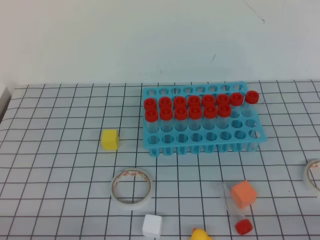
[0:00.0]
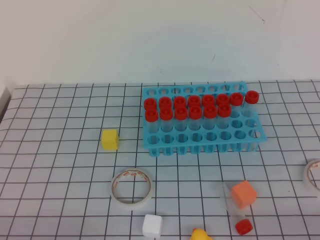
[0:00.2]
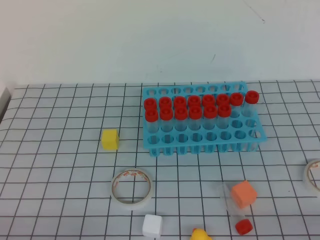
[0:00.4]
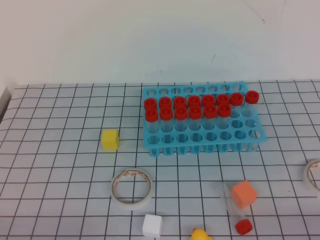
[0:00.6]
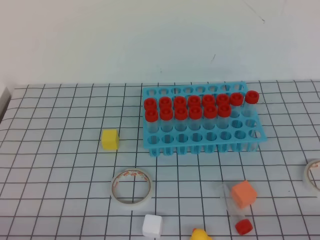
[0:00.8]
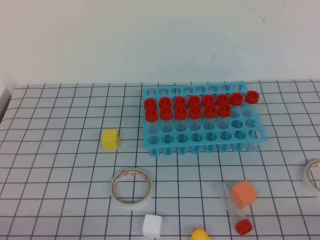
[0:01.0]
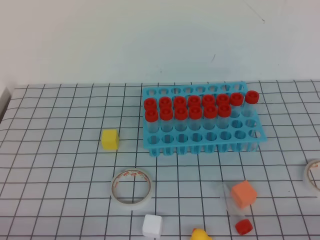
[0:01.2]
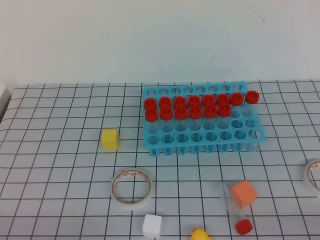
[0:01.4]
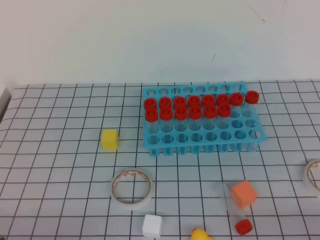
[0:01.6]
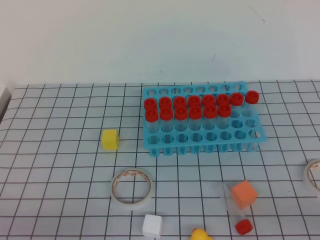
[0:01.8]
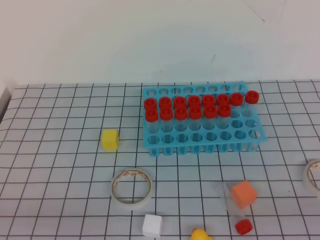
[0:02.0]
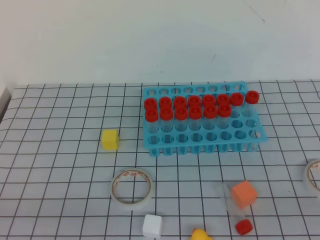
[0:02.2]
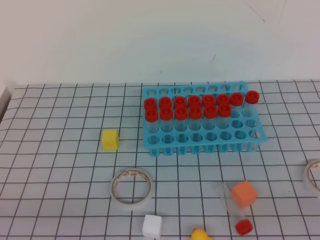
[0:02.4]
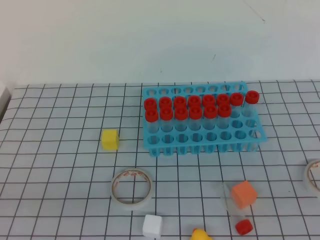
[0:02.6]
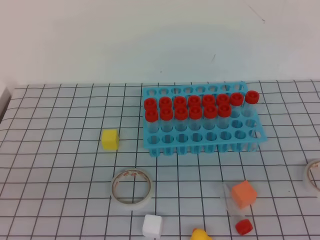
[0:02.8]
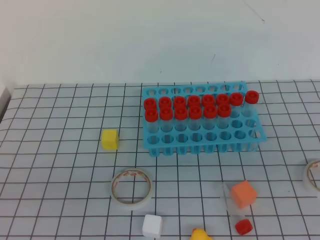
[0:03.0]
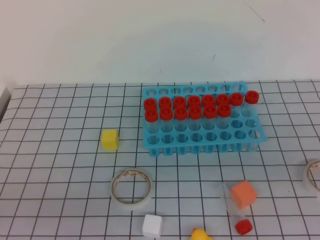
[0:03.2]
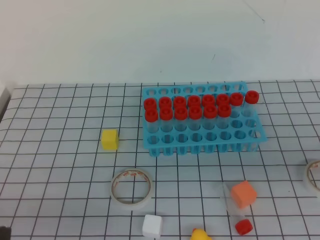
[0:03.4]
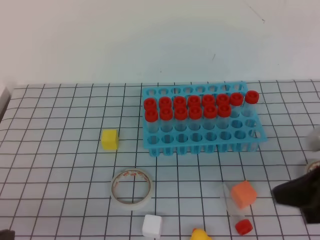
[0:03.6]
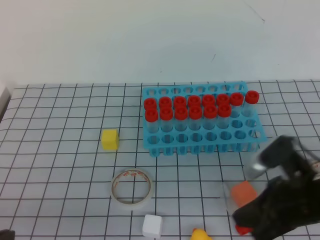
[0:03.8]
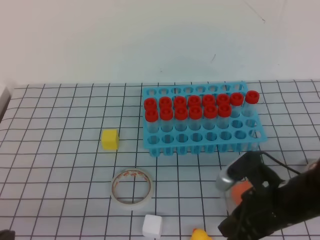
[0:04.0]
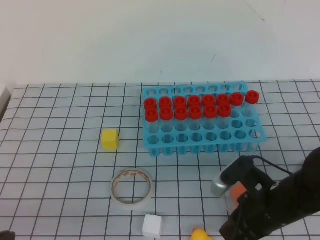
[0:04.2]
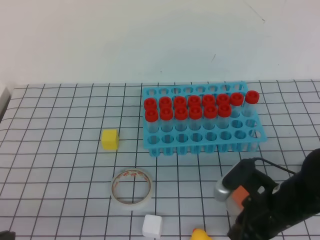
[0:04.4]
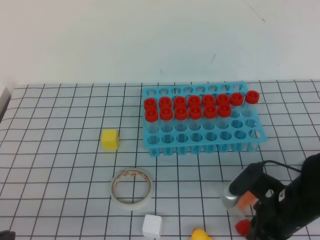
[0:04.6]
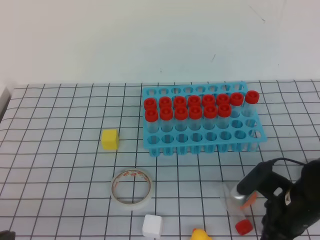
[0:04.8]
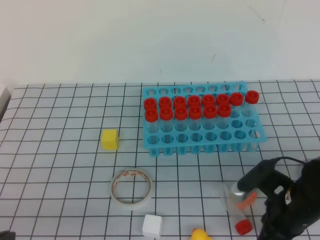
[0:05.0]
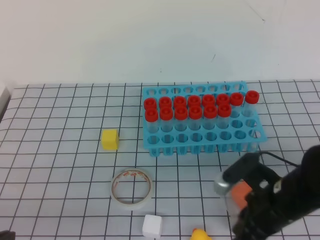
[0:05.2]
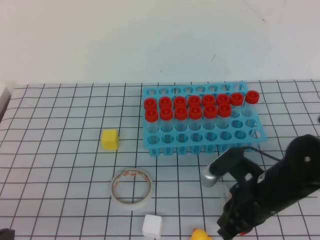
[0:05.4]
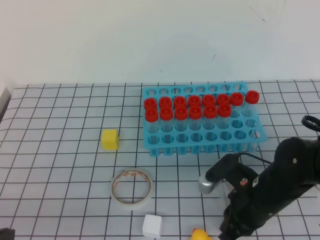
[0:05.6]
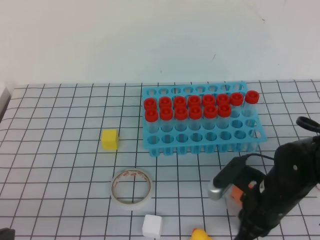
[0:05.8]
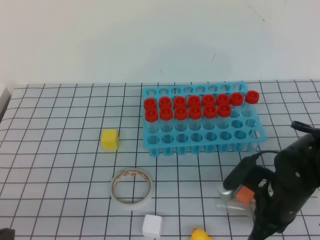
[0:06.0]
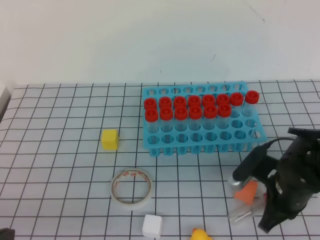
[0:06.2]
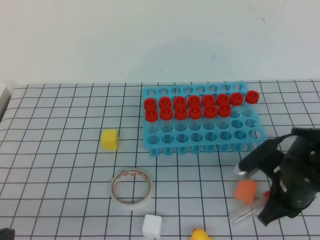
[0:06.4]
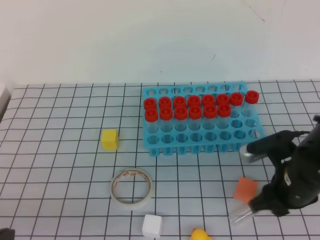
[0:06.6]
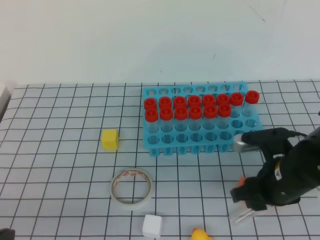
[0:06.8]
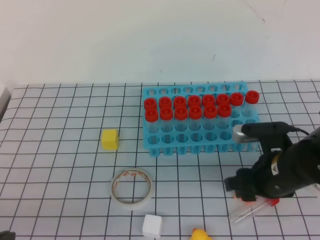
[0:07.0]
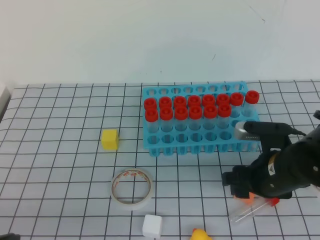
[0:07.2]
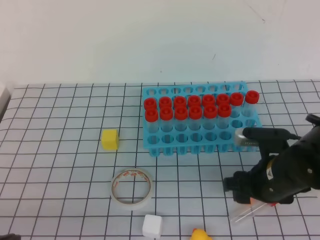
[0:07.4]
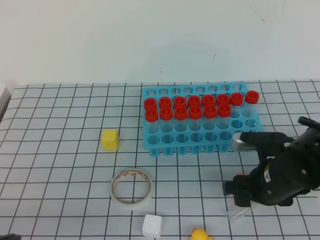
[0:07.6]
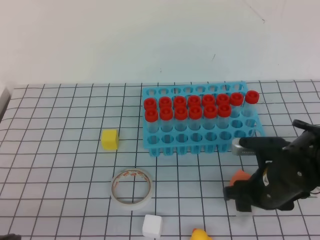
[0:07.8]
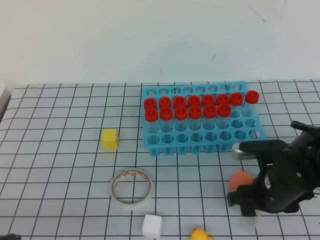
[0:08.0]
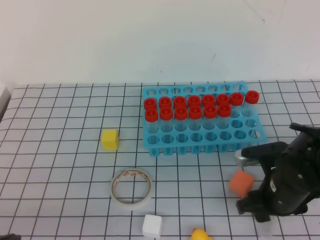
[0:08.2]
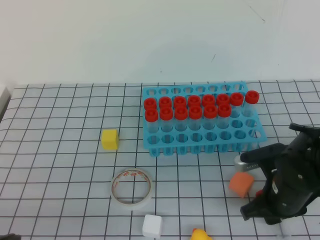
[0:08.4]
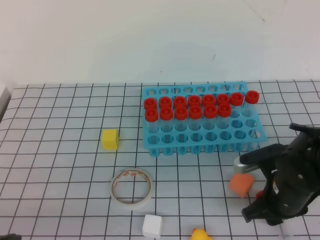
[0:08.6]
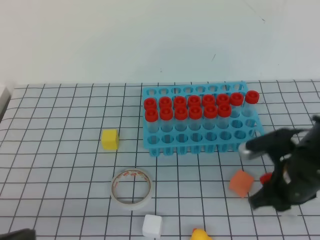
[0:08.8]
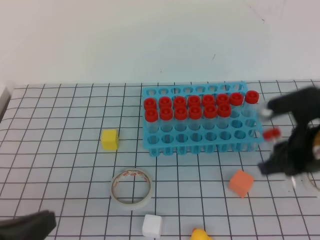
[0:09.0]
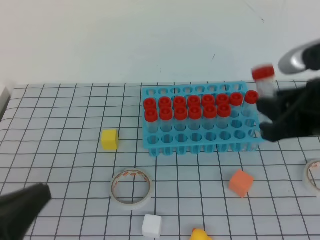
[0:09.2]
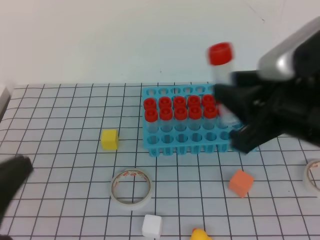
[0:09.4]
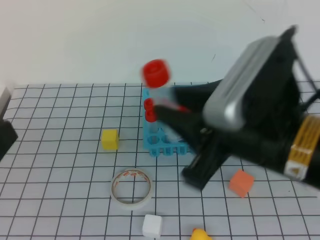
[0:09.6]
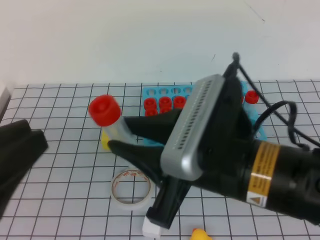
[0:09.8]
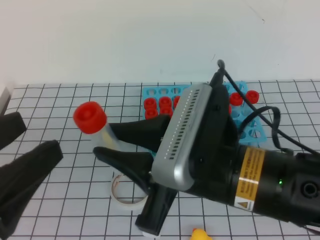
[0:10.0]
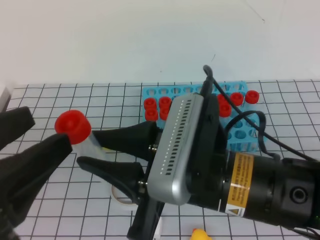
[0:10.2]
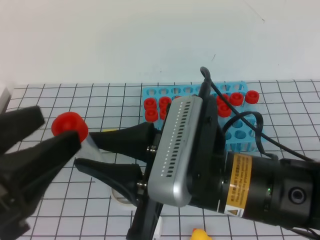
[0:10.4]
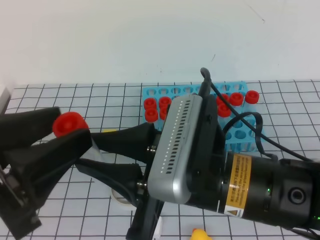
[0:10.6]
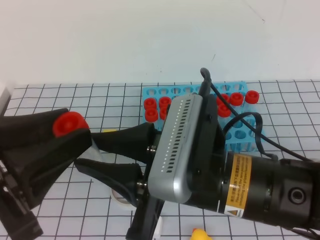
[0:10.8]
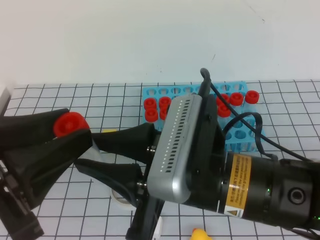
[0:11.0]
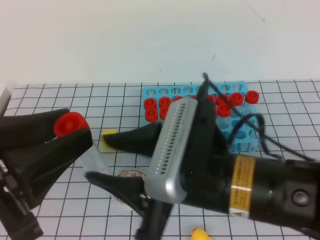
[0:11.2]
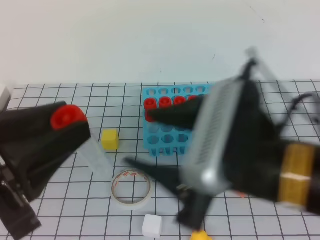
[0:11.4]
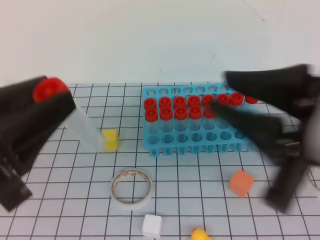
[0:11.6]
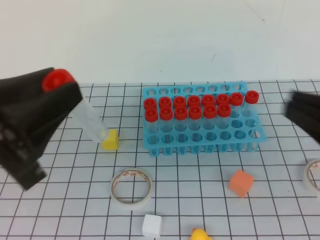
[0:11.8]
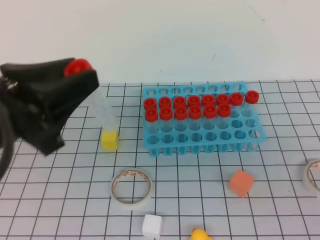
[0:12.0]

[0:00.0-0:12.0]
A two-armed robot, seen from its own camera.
0:03.0 to 0:04.4: The right gripper shifts approximately 30 cm downward, forward and to the left.
0:04.4 to 0:06.0: The grippers stay close to where they were, moving slightly.
0:06.0 to 0:07.6: The right gripper opens its fingers.
0:07.6 to 0:09.0: The right gripper heads upward, covering approximately 10 cm, and closes up.
0:09.0 to 0:10.4: The left gripper travels upward by approximately 10 cm, and opens. Meanwhile the right gripper is displaced to the left, backward and upward by some 20 cm.
0:10.4 to 0:12.0: The left gripper travels forward by some 5 cm, while the right gripper moves to the right, roughly 20 cm, and closes its fingers.

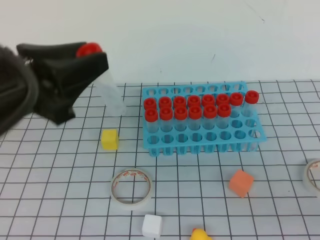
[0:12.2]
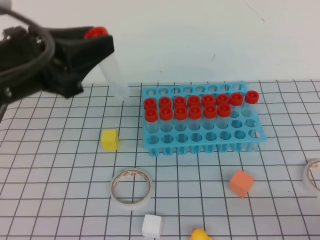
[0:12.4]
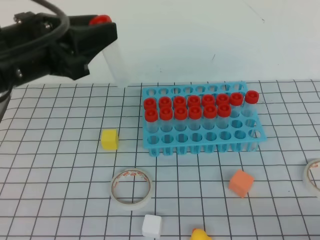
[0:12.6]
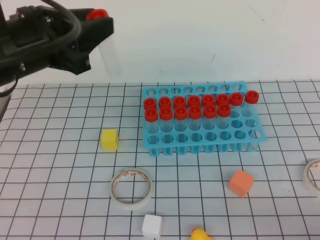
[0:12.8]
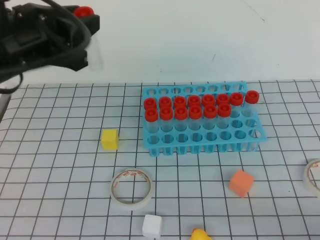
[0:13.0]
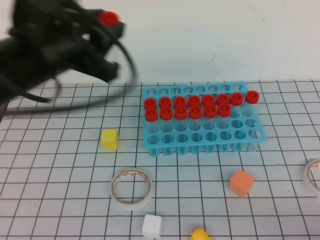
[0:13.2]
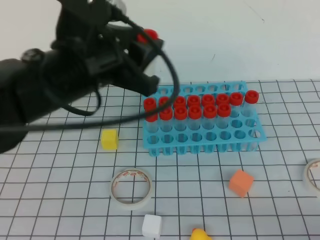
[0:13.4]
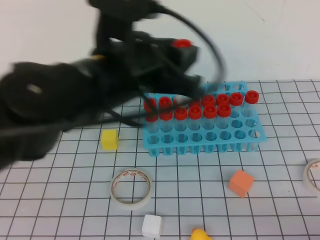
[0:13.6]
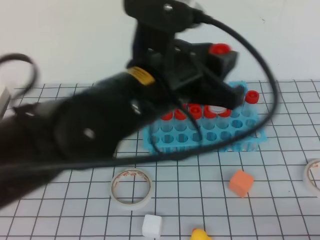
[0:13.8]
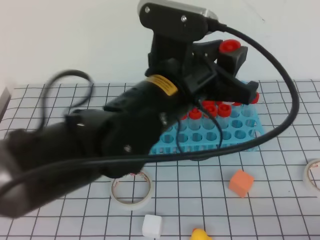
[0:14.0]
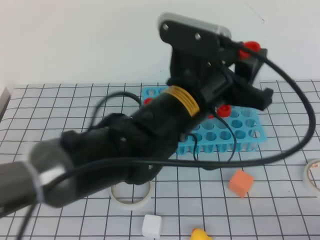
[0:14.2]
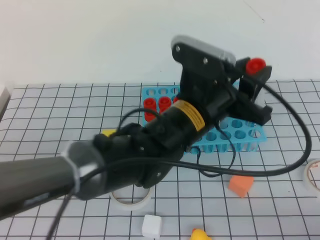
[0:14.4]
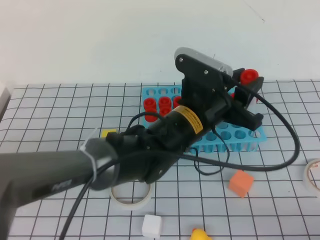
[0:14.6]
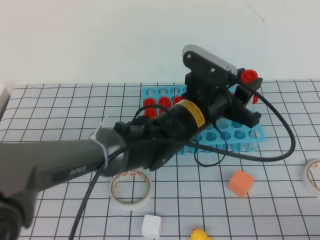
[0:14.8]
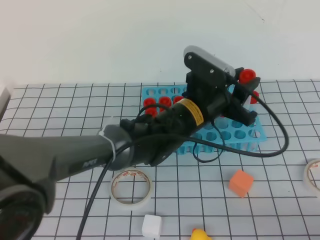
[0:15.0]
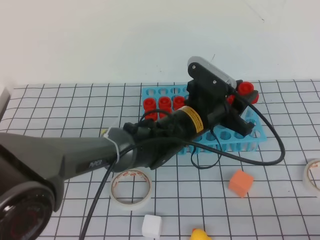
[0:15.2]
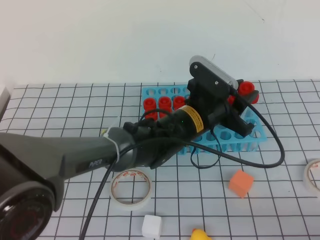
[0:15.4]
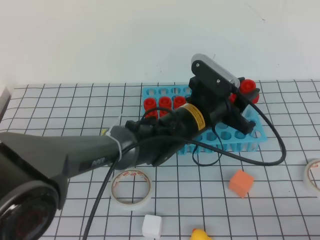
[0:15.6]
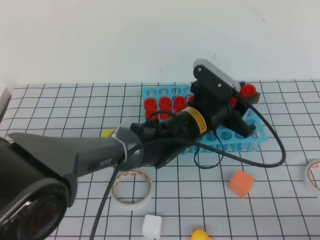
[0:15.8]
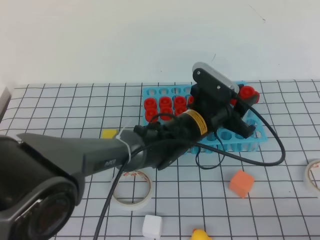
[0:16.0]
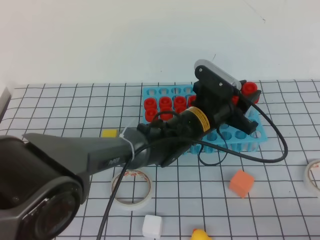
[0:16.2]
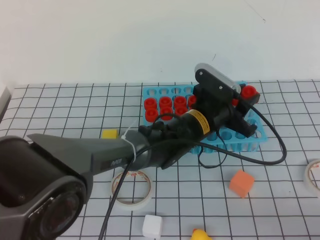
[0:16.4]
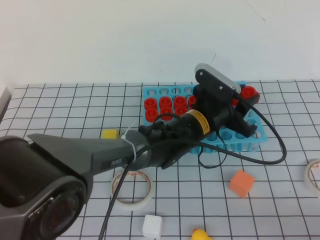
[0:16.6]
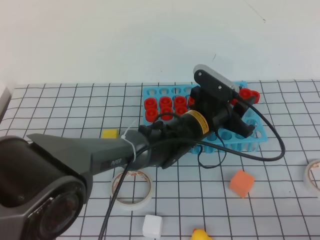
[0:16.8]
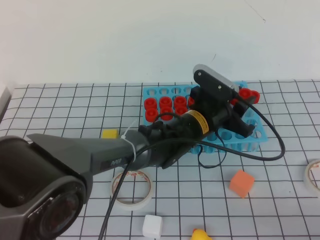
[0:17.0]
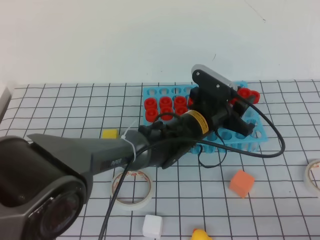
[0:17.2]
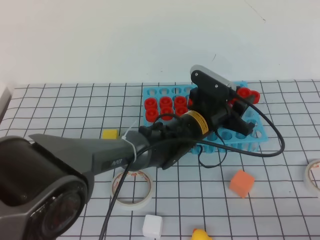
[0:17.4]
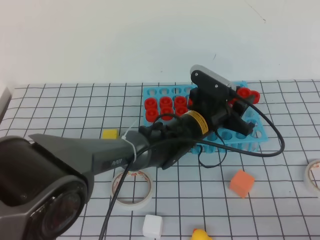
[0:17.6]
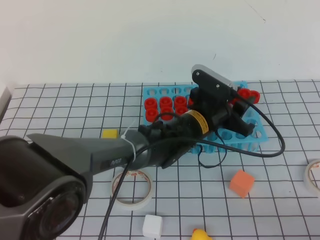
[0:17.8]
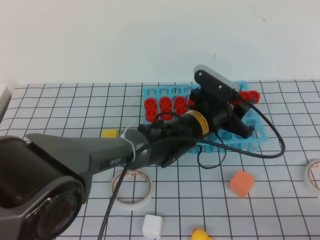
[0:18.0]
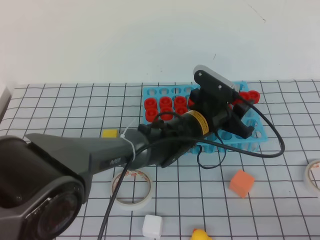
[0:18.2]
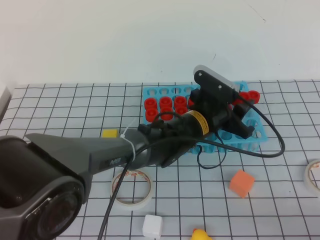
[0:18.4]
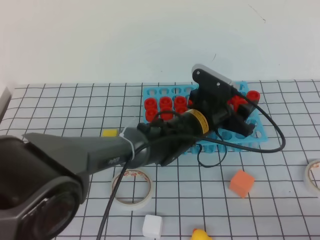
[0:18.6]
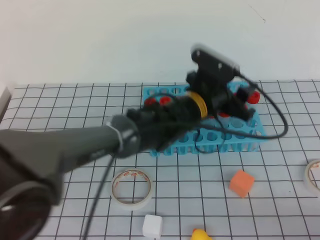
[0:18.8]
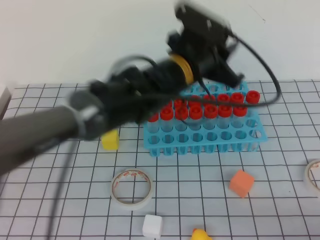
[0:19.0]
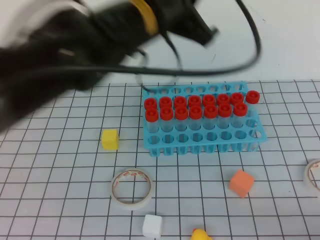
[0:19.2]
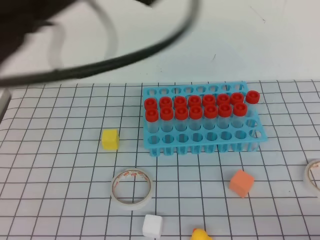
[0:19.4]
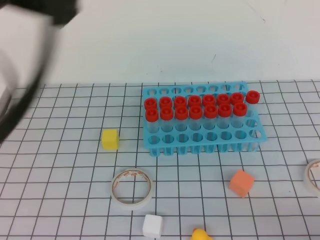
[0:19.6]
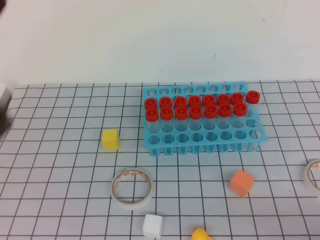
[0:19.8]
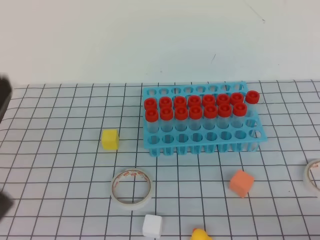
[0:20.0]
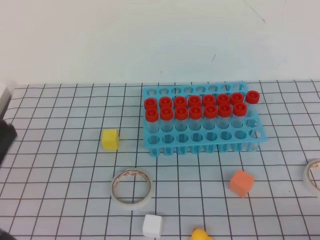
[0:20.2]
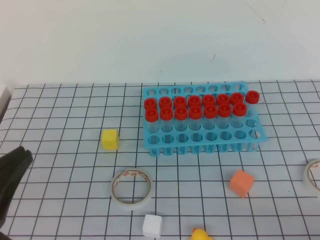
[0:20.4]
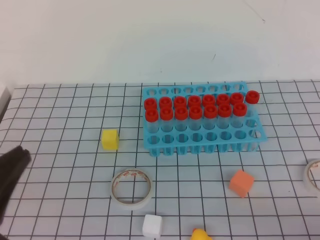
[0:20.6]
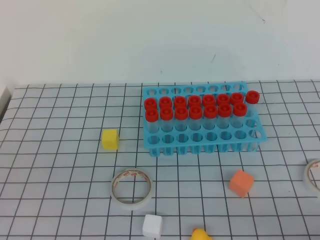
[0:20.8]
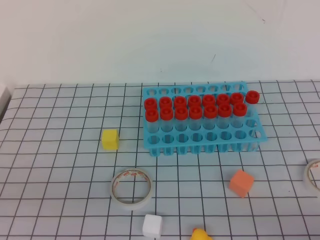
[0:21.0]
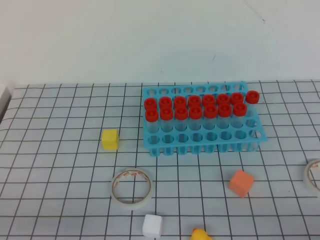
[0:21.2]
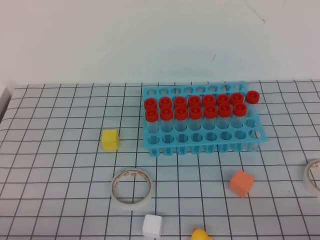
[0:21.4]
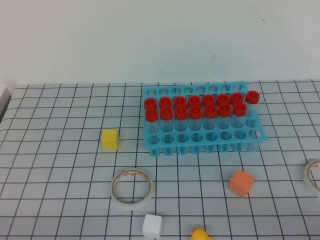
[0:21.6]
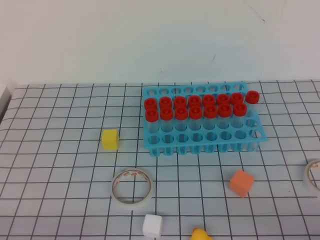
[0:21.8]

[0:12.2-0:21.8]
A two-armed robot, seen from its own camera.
0:12.2 to 0:13.8: The left gripper goes approximately 15 cm to the right, while the right gripper ends up approximately 5 cm from where it was.
0:13.8 to 0:15.4: The left gripper heads downward, forward and to the right, covering approximately 20 cm.
0:15.4 to 0:17.0: There are only small adjustments of the grippers.
0:17.0 to 0:18.6: Both grippers stay about where they are.
0:18.6 to 0:20.2: The left gripper goes some 40 cm backward, to the left and upward, and closes up.
0:20.2 to 0:21.8: The left gripper is displaced downward by some 20 cm.

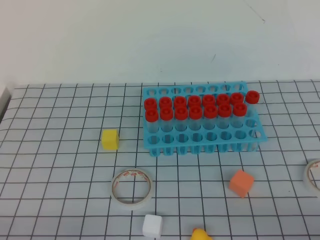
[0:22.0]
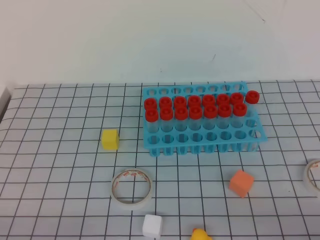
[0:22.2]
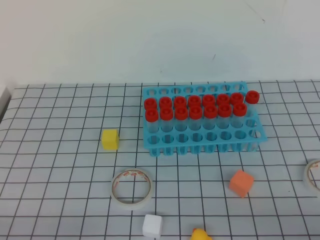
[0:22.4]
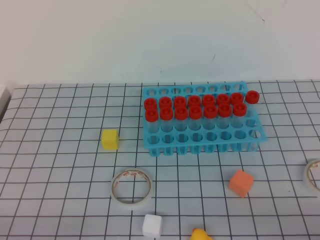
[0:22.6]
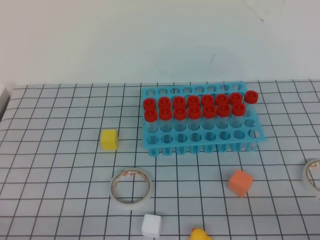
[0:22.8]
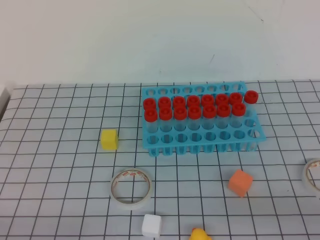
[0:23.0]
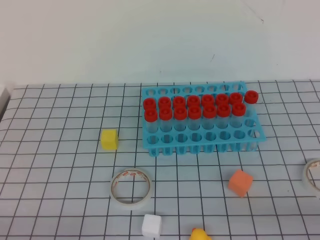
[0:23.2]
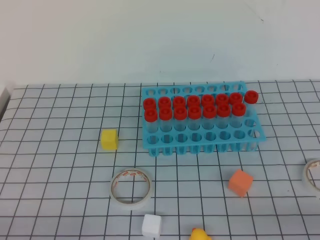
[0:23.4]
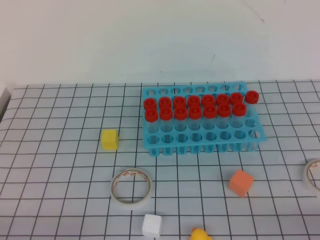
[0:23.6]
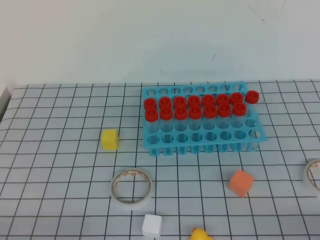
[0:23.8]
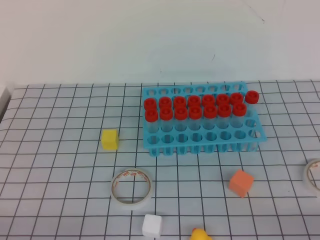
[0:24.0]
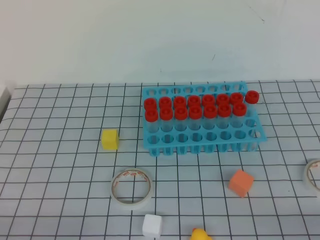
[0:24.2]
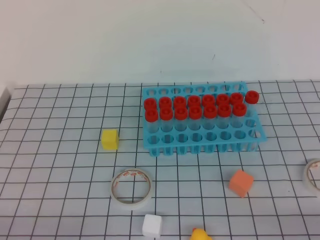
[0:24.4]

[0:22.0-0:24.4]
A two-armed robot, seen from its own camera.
0:22.0 to 0:23.2: The right gripper ends up some 5 cm from where it was.
